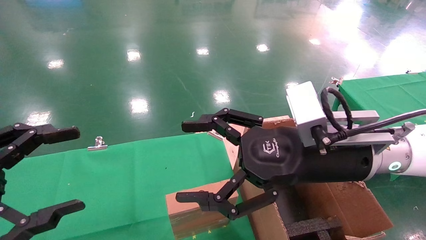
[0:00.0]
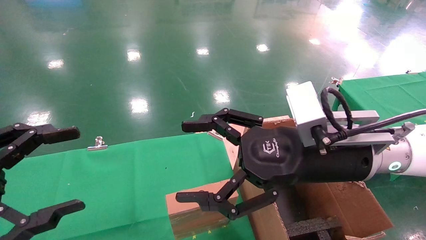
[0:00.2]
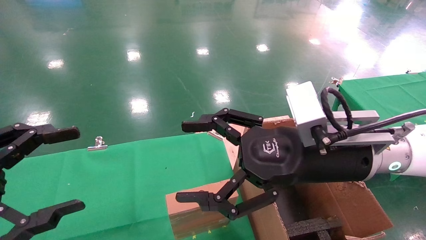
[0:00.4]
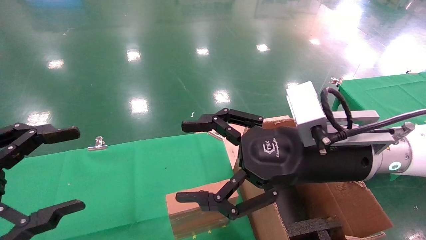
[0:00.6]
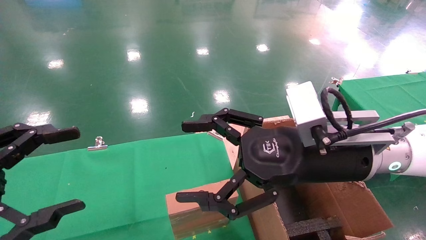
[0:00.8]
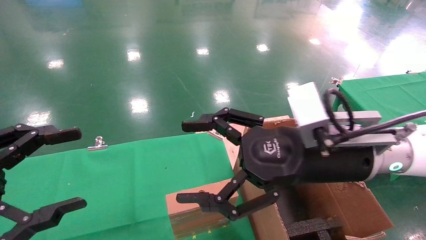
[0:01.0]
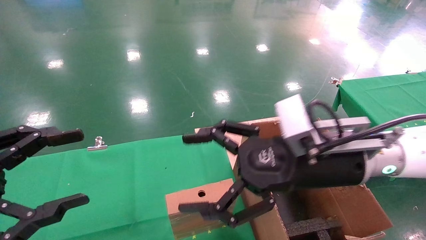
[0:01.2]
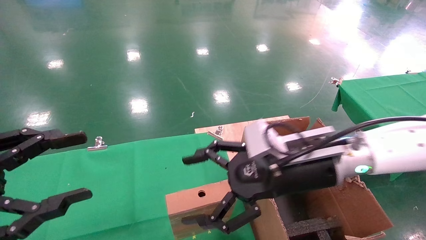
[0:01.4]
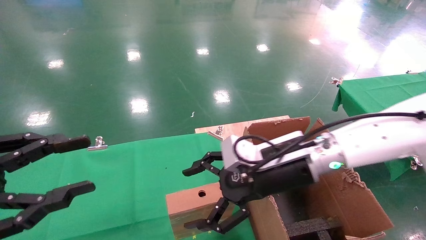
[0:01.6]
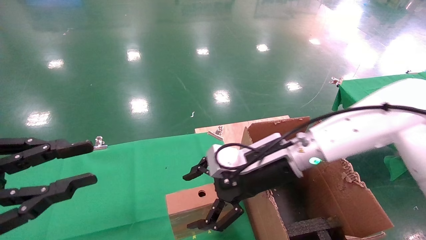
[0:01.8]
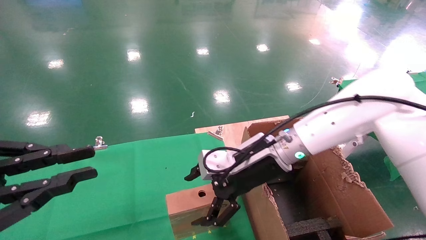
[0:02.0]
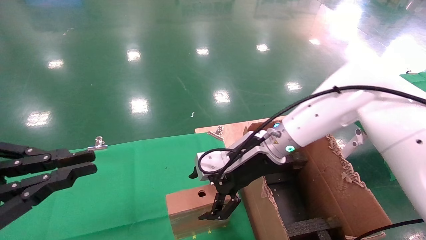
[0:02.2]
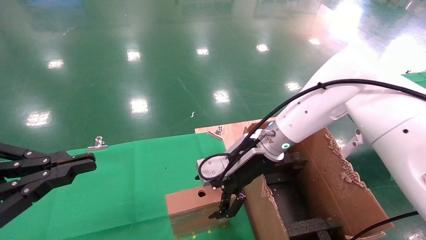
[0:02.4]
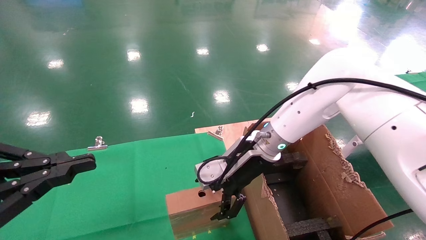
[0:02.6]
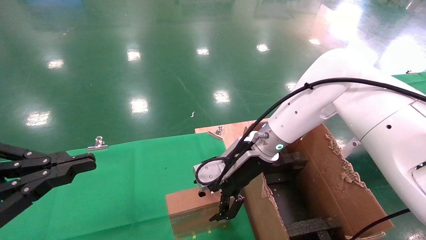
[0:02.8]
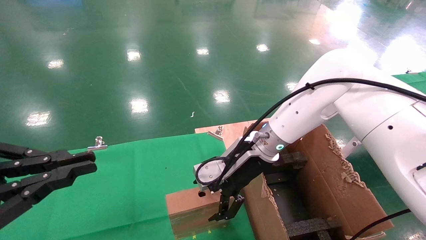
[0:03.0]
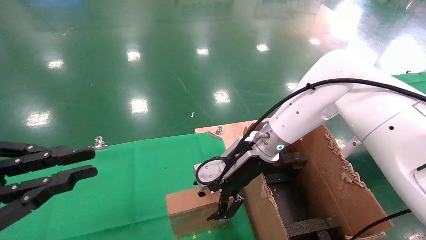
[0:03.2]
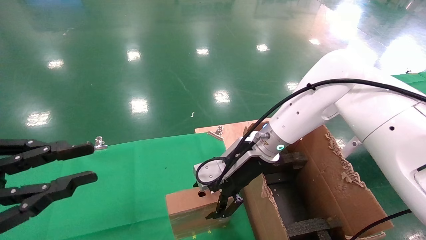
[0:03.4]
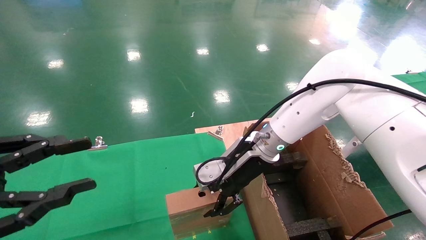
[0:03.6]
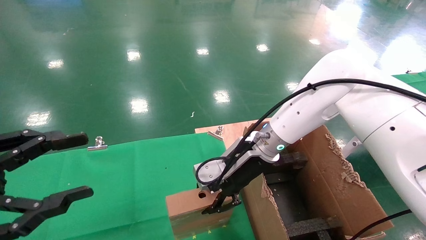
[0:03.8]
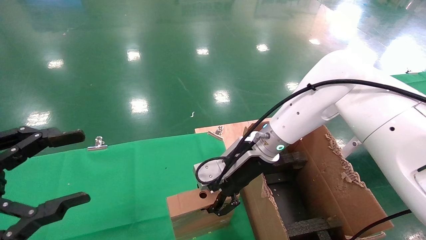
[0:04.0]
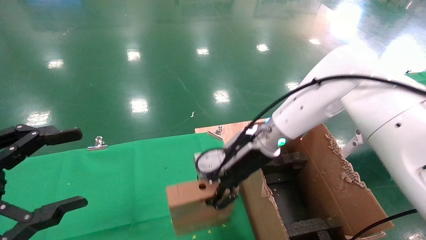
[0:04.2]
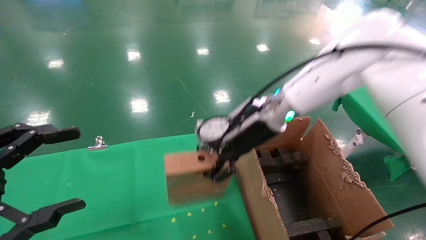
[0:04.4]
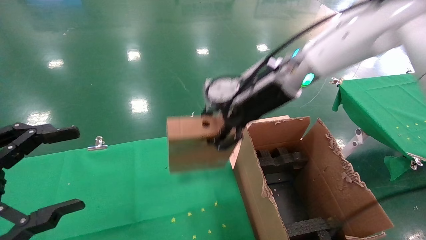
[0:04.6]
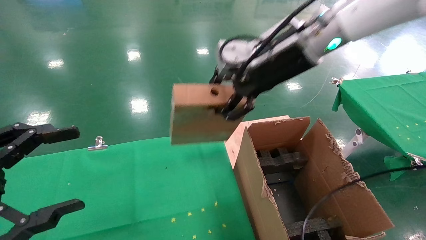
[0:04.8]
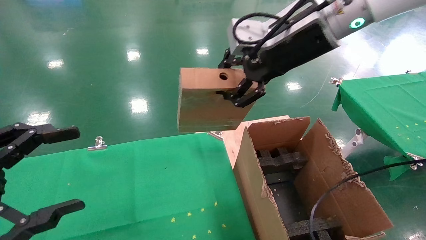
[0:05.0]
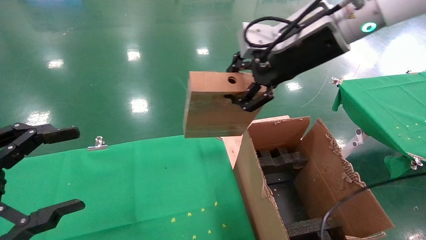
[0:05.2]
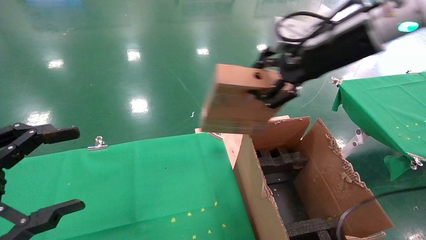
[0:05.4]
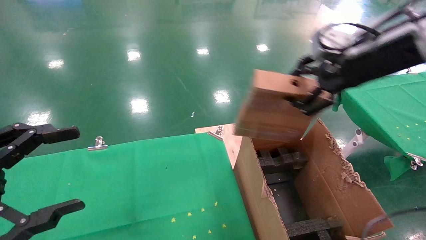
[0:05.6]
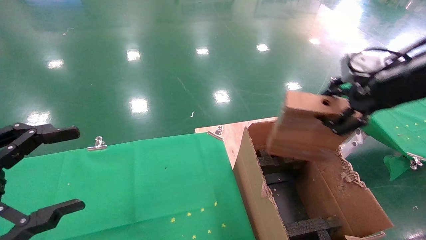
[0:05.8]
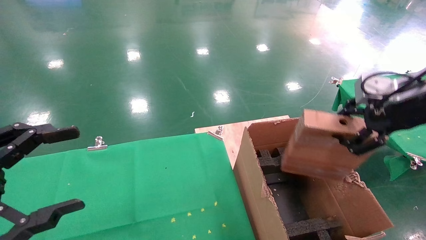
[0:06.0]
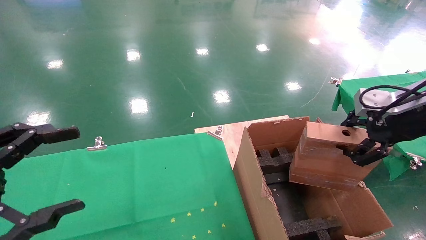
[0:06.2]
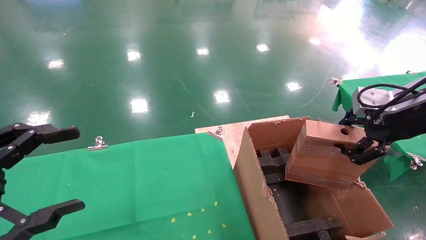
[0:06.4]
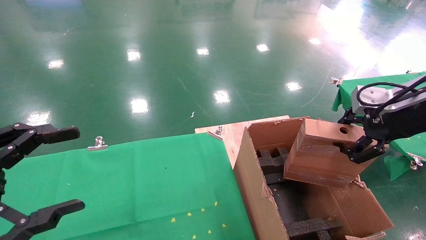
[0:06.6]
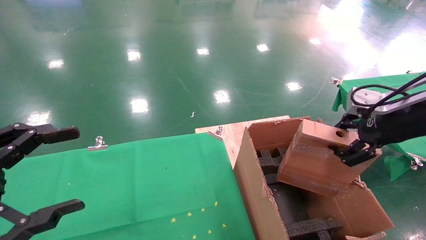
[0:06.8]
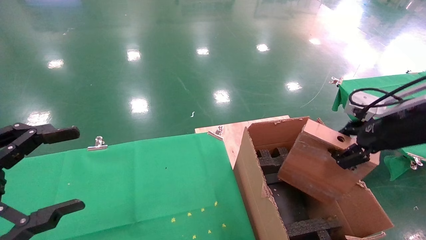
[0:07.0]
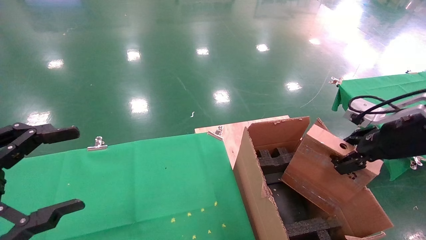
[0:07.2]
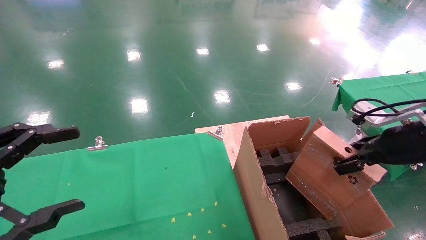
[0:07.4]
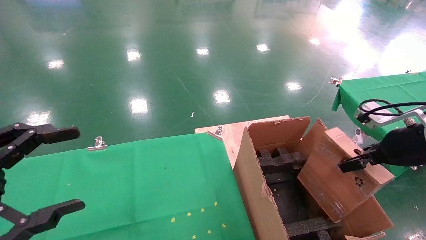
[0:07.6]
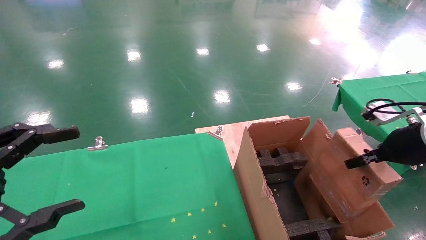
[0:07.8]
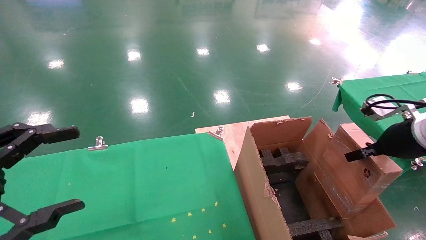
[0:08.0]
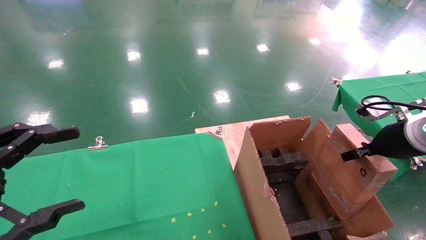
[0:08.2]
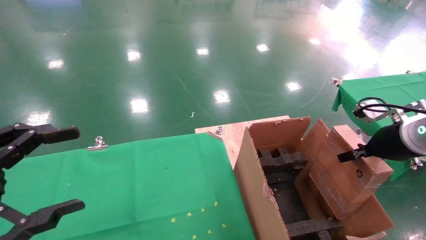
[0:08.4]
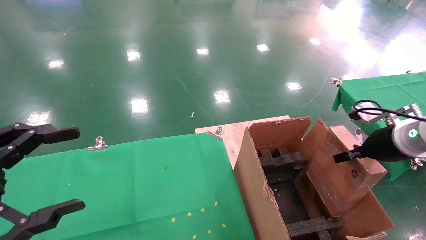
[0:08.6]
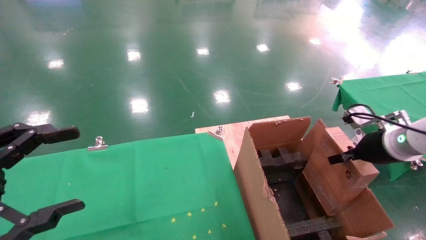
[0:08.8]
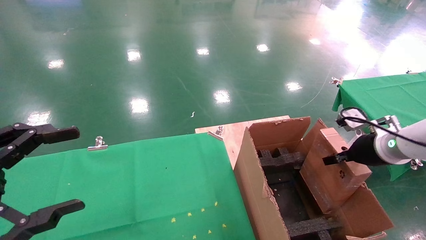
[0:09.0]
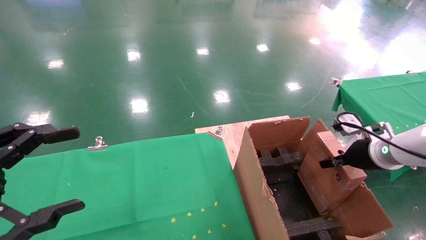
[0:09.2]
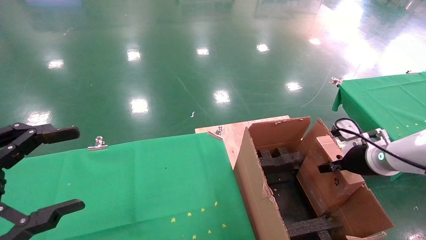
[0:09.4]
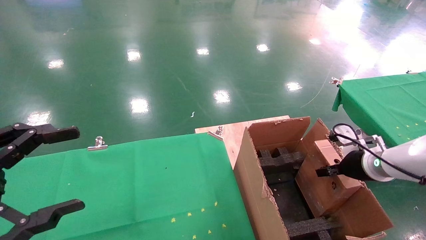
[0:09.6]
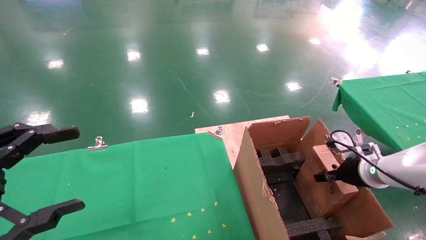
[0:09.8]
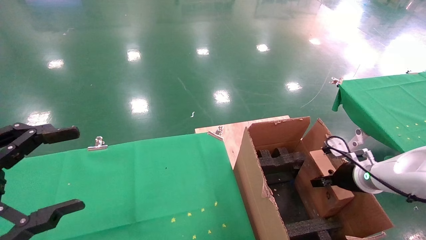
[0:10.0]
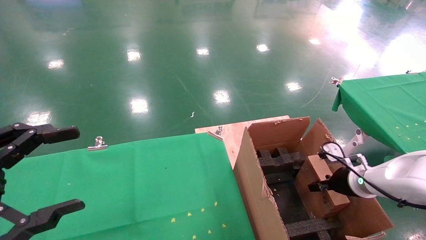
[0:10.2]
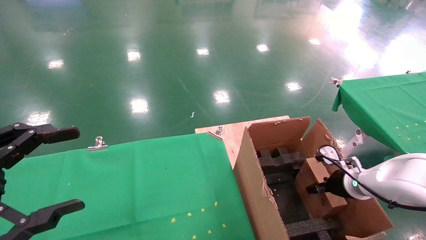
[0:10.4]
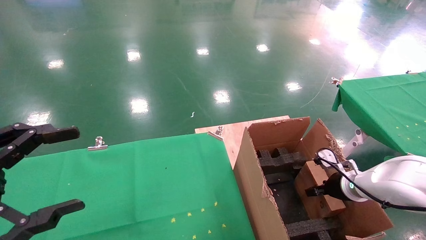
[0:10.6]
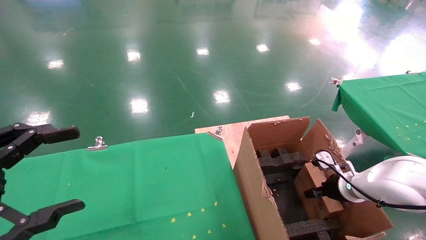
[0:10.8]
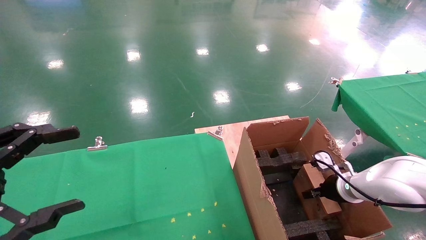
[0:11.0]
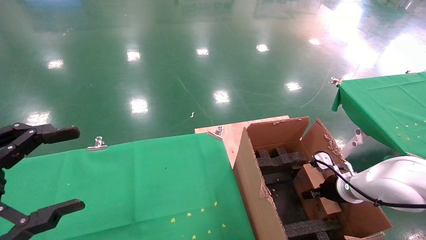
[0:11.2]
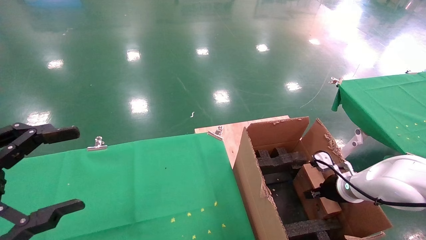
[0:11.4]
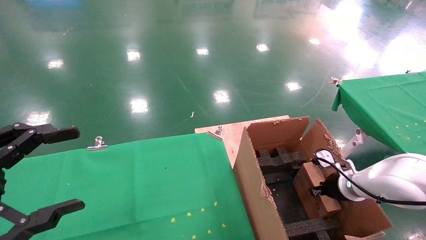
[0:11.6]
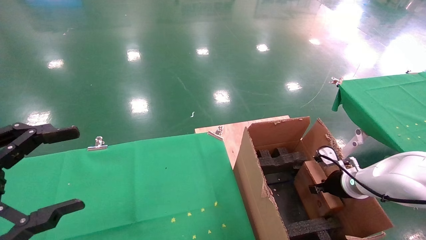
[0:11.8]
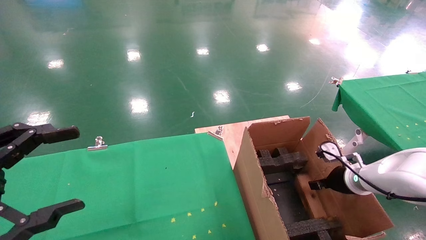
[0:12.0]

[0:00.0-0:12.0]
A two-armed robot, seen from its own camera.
Task of the whole recording: using a robotic arm to pick up a cardboard box and palace it the carton.
Step, 0:01.4 to 0:04.0: Pick up the mouse and the power cord paper box.
0:00.0 to 0:01.6: The left gripper closes its fingers. Meanwhile the right gripper is displaced forward by roughly 5 cm.
0:01.6 to 0:03.0: The left gripper closes its fingers. Meanwhile the right gripper moves forward, approximately 10 cm.
0:03.0 to 0:04.4: The right gripper moves upward, about 10 cm, and closes; the left gripper opens.
0:04.4 to 0:06.0: The right gripper goes about 25 cm to the right and backward.
0:06.0 to 0:07.6: The right gripper goes roughly 10 cm downward.
0:07.6 to 0:09.0: The right gripper is displaced forward and downward by approximately 10 cm.
0:09.0 to 0:10.4: The right gripper is displaced downward by roughly 10 cm.
0:10.4 to 0:12.0: The right gripper opens up.

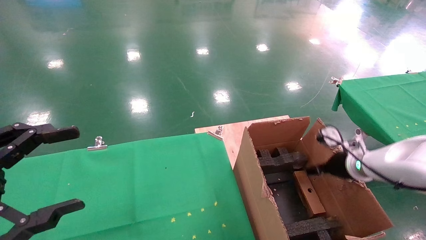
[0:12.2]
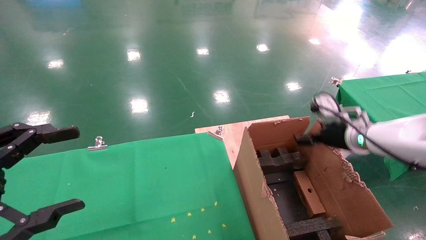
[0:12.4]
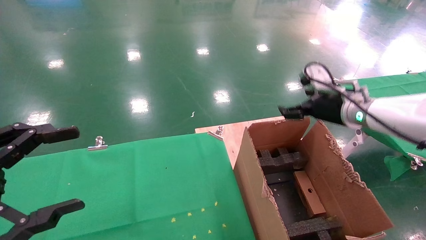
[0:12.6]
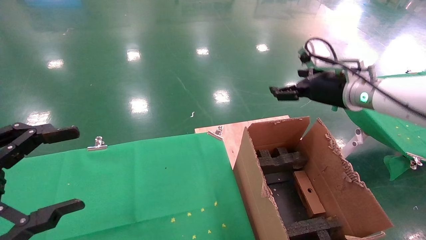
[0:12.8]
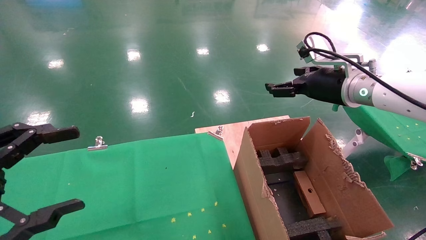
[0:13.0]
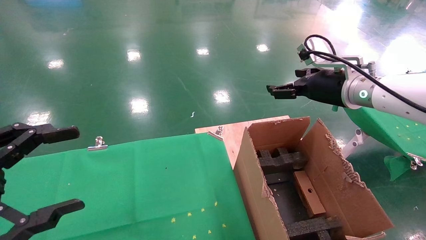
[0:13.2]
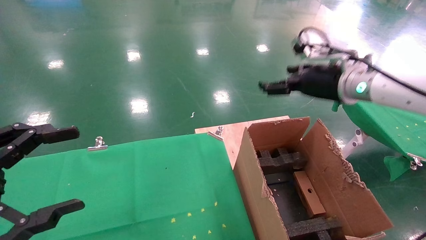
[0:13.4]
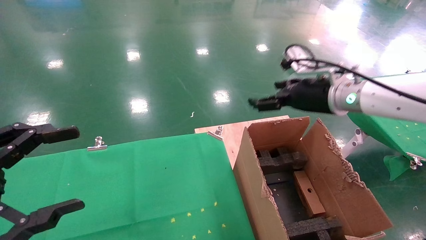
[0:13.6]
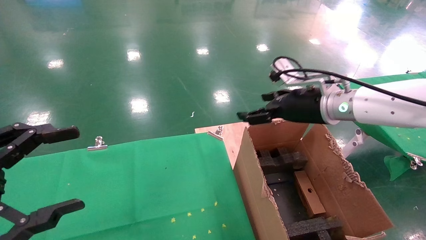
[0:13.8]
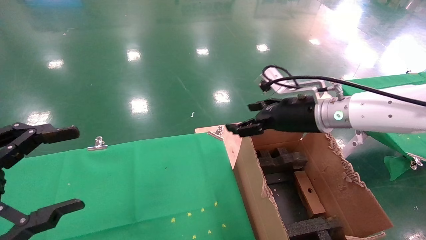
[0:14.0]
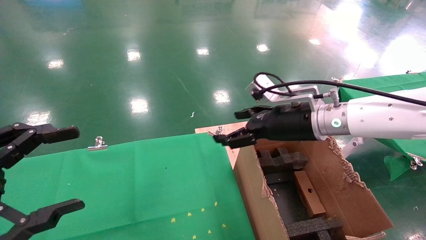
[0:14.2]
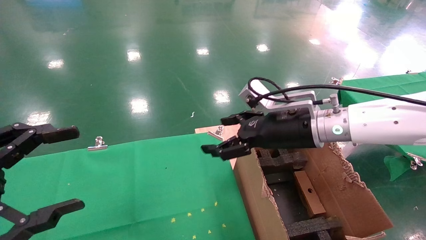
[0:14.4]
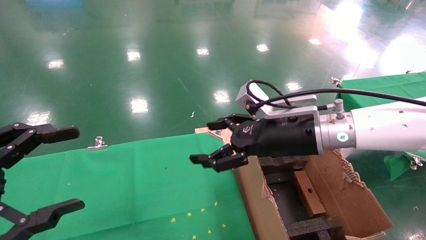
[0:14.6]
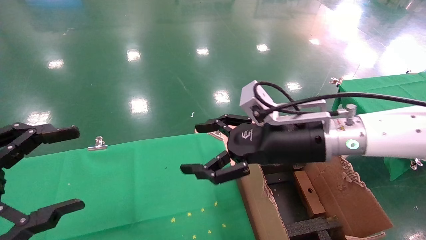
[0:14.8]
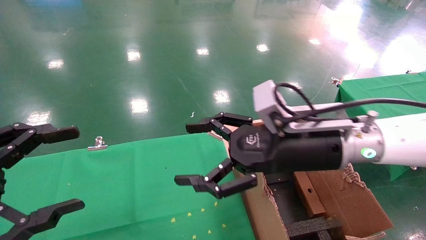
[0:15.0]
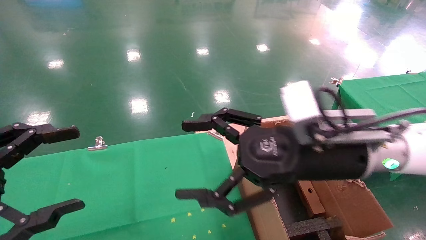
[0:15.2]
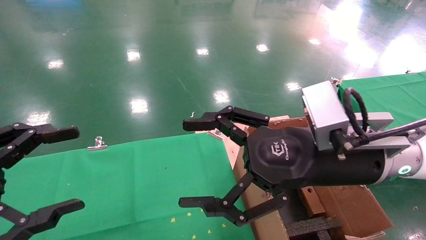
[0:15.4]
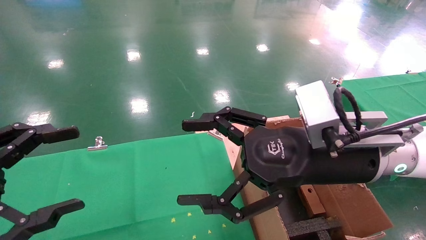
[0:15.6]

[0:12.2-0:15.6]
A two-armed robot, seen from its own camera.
Task of the whole recording: using a robotic arm to pick up a cardboard box and palace it the carton.
0:12.2 to 0:13.8: The right gripper heads upward and to the left, covering approximately 20 cm.
0:13.8 to 0:15.6: The right gripper is displaced backward and to the left by some 15 cm.
